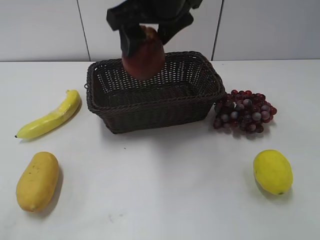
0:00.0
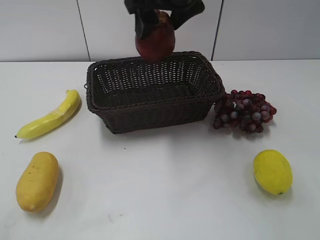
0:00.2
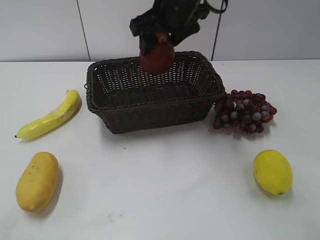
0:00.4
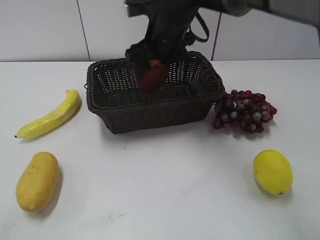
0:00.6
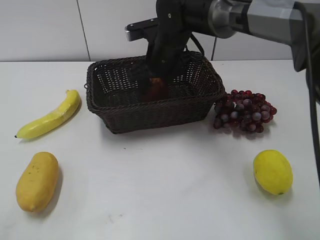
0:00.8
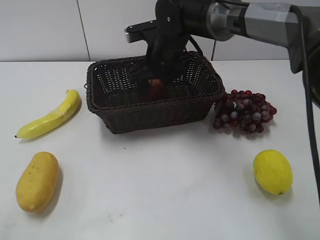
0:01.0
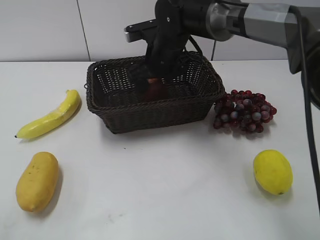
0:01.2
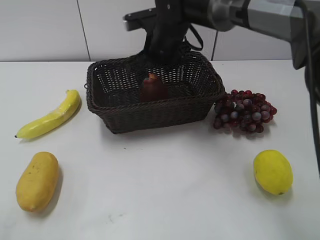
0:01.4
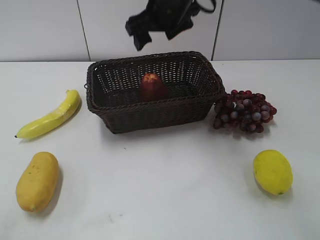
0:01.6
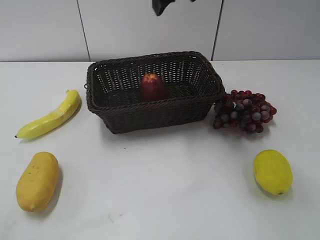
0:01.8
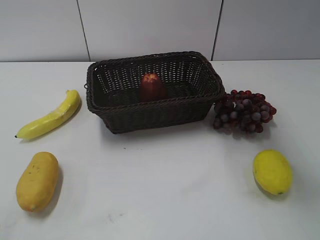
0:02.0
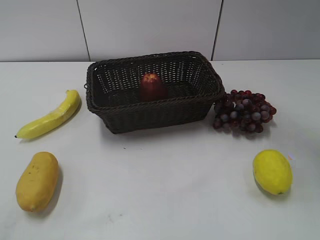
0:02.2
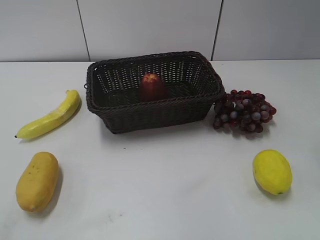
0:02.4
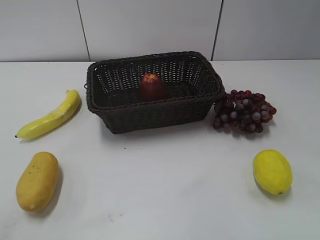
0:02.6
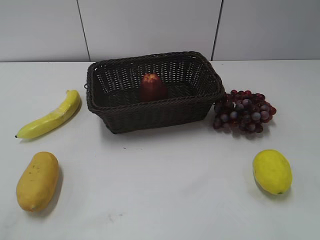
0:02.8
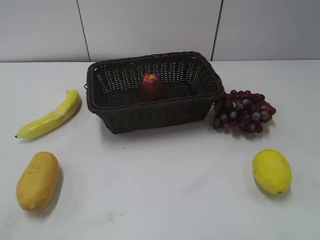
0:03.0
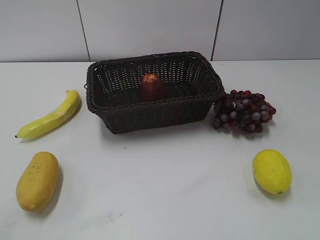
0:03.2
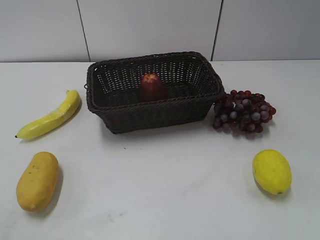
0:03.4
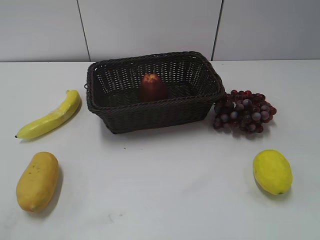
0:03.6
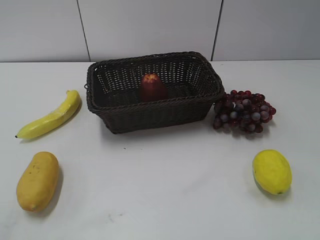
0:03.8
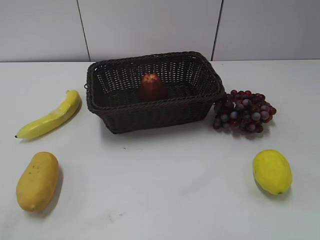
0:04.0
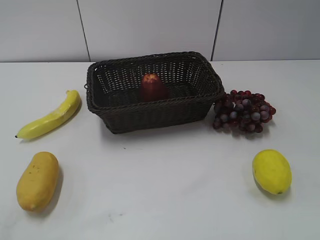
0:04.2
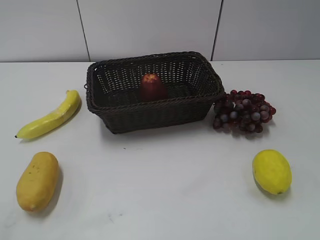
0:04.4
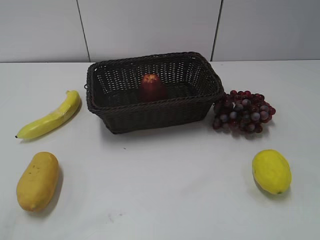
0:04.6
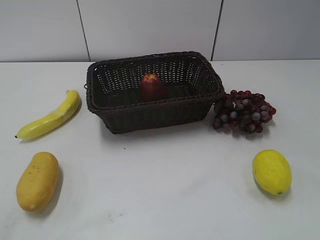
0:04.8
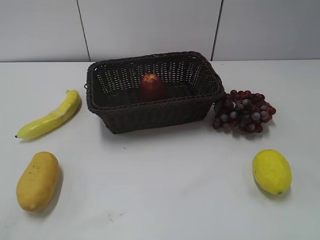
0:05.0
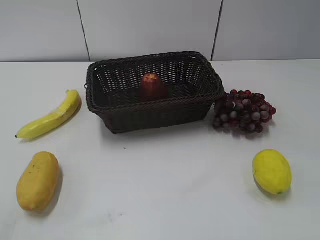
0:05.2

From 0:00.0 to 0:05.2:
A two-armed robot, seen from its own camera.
Step, from 0:00.0 to 0:01.0: Place the apple in the basket with right gripper.
From 0:00.0 to 0:01.8: The right gripper travels downward and back again, approximately 15 cm each way.
From 0:01.8 to 0:03.4: The right gripper heads backward and to the right, covering approximately 50 cm.

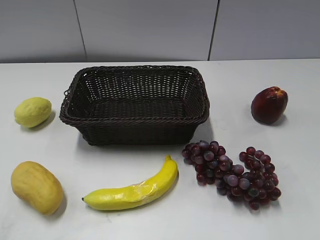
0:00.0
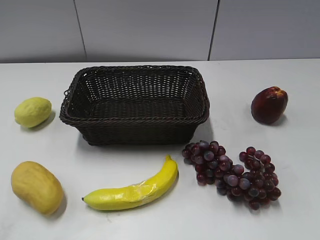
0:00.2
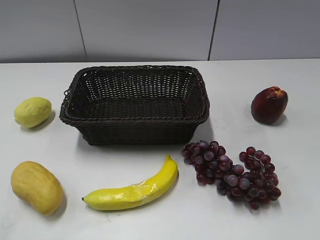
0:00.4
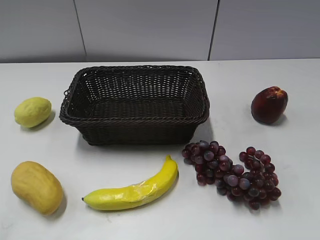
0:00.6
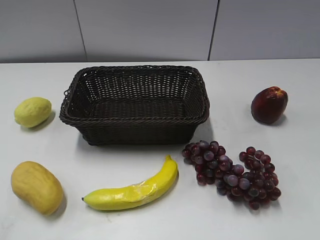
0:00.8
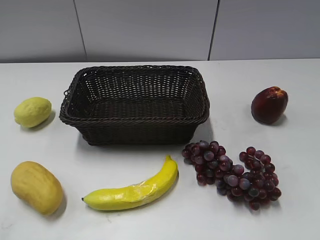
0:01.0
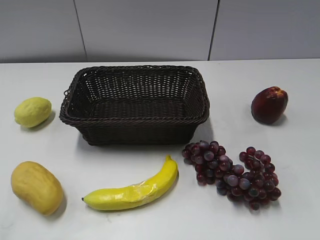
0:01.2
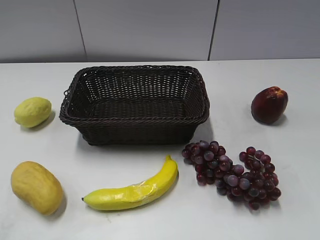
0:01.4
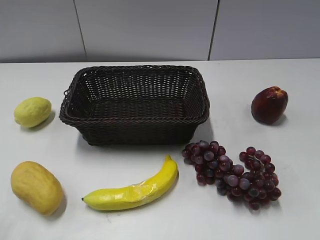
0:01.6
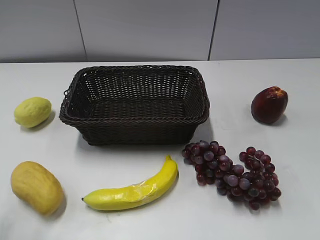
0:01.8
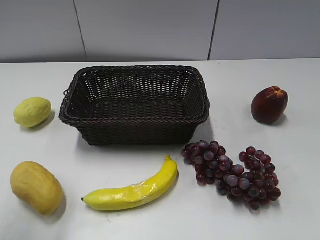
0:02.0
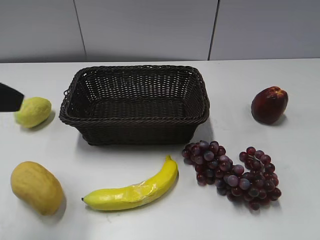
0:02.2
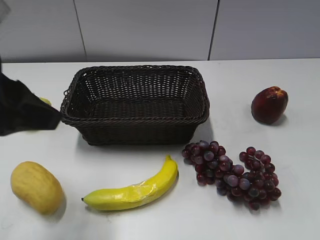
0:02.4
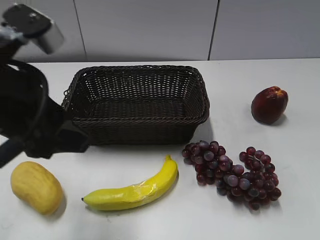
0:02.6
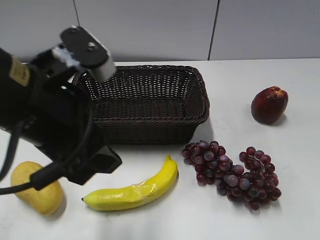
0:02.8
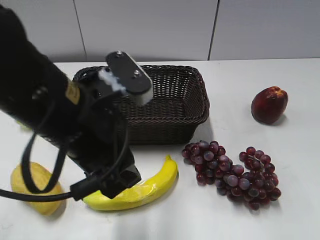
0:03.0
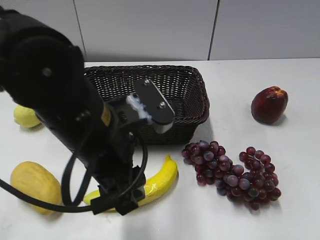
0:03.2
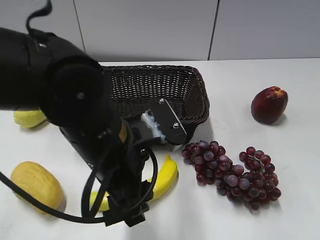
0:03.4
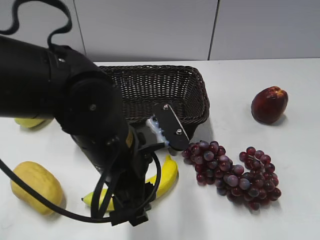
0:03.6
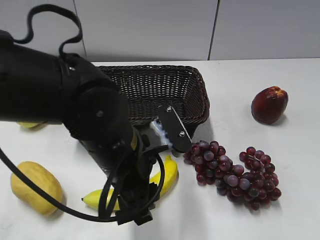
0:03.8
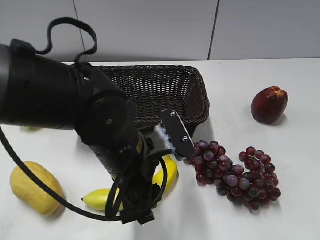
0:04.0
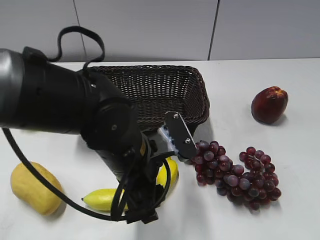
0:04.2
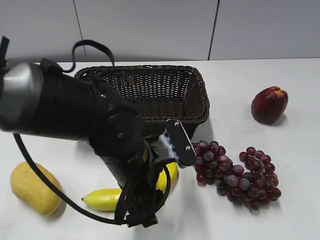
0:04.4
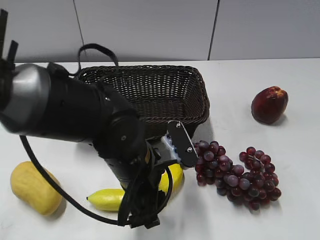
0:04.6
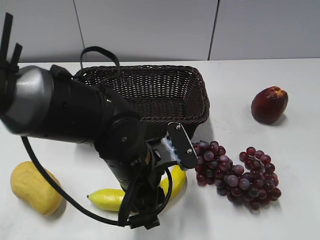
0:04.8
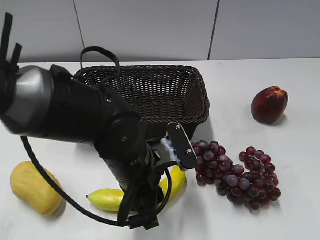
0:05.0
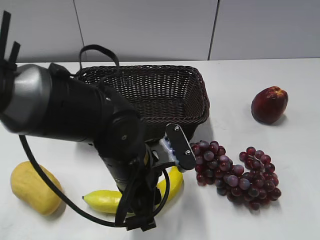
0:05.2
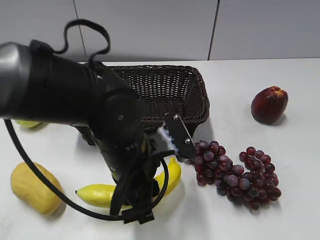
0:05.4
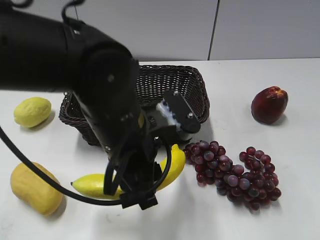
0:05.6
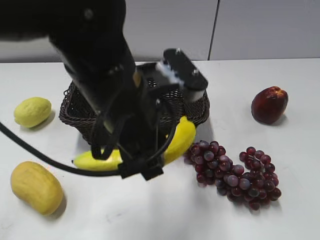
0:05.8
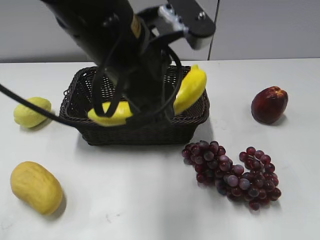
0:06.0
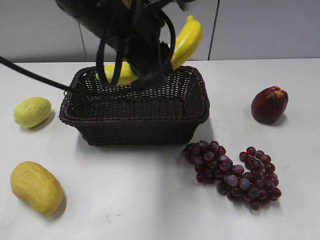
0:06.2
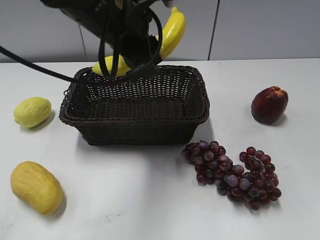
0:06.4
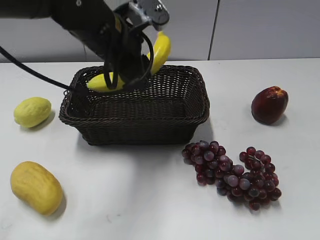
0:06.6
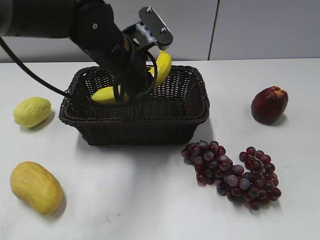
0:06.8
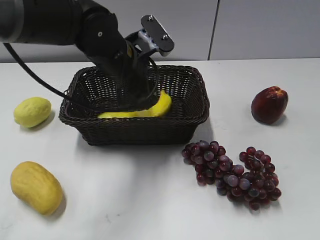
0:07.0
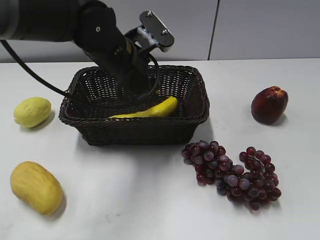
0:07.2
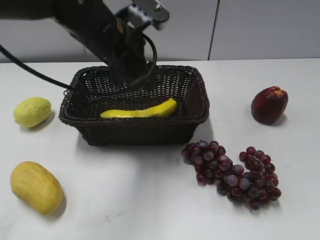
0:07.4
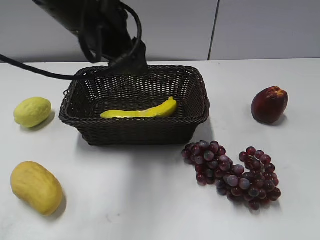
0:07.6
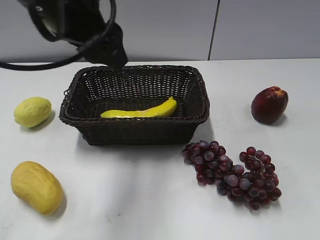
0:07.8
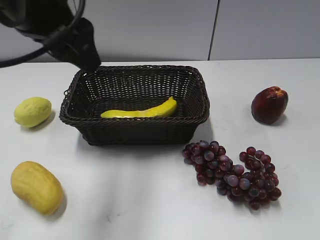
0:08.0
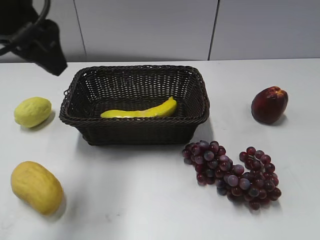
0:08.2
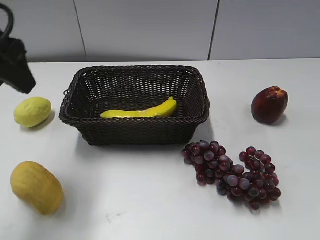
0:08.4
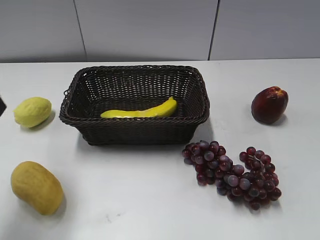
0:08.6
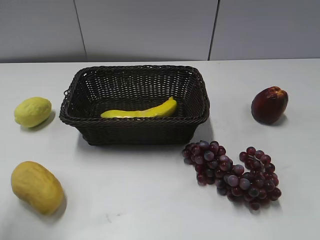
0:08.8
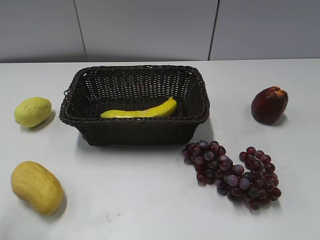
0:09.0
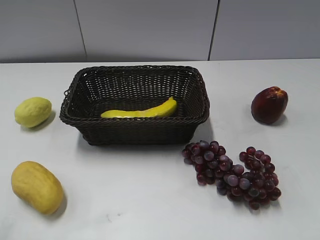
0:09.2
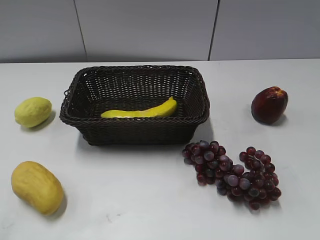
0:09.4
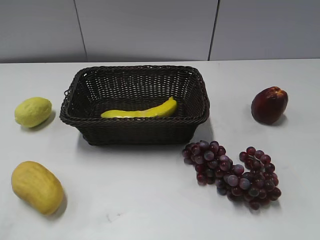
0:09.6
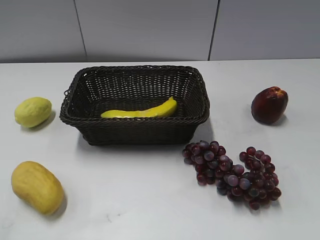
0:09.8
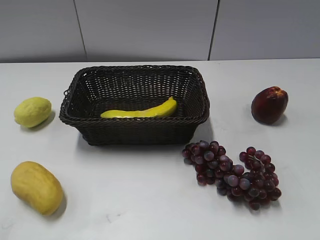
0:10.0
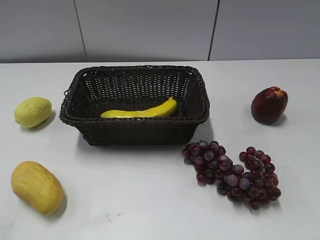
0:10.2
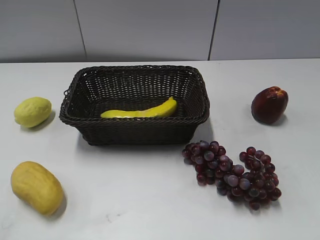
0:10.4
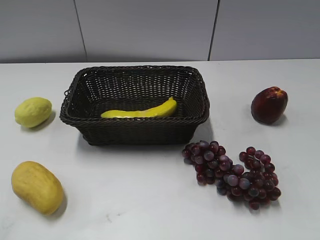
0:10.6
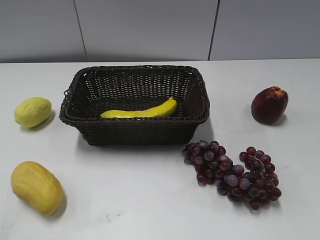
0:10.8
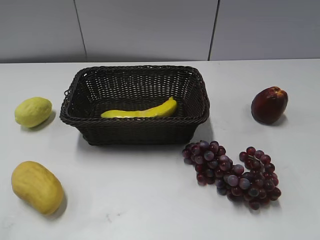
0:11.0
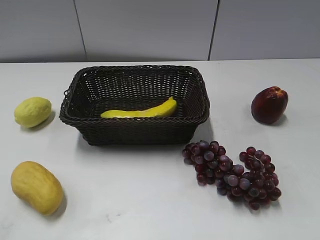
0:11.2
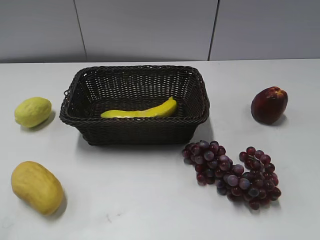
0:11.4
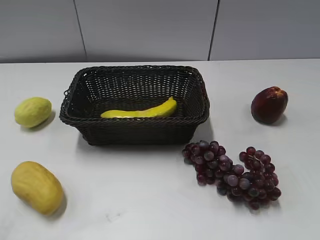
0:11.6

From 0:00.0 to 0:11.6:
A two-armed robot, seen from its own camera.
Step, from 0:02.2 to 0:04.6: Grasp the banana with left gripper.
Step, from 0:05.0 to 0:07.2: Place the banana in the basket with left gripper.
From 0:01.4 to 0:02.8: The left gripper heads to the right and forward, covering some 25 cm.
From 0:02.8 to 0:04.4: The left gripper travels downward and to the right by approximately 15 cm.
From 0:04.4 to 0:05.8: The left gripper heads upward, covering roughly 15 cm, and closes its fingers.
From 0:05.8 to 0:07.2: The left gripper goes roughly 15 cm forward, and opens up.
From 0:07.2 to 0:08.8: The left gripper travels to the left, backward and upward by about 30 cm.
From 0:08.8 to 0:10.2: The left gripper heads backward, covering roughly 15 cm.
